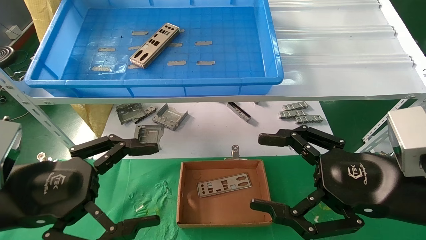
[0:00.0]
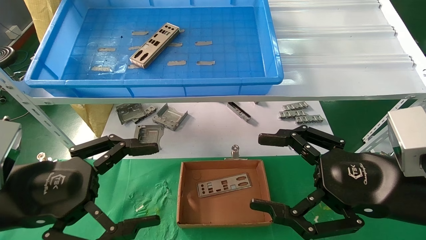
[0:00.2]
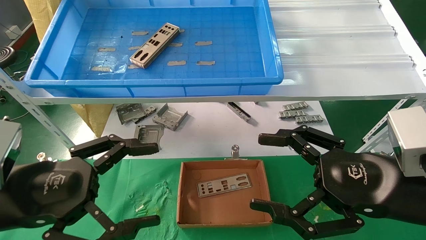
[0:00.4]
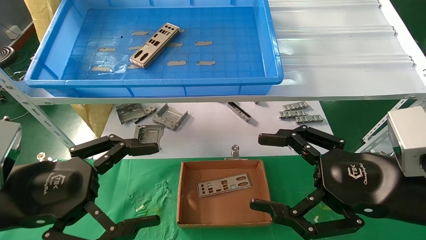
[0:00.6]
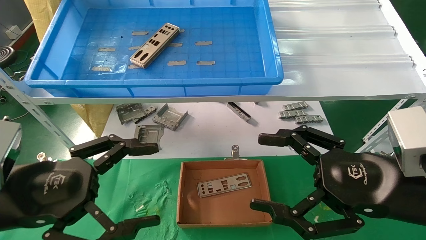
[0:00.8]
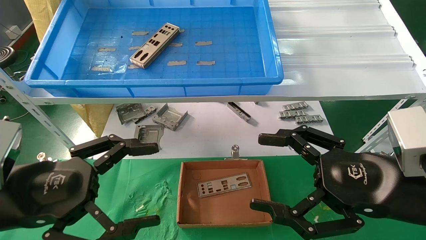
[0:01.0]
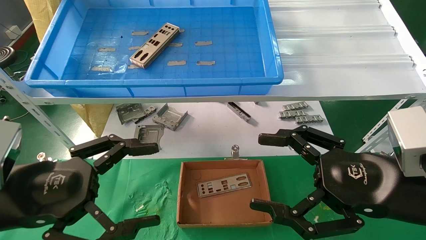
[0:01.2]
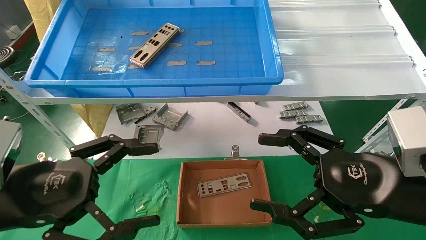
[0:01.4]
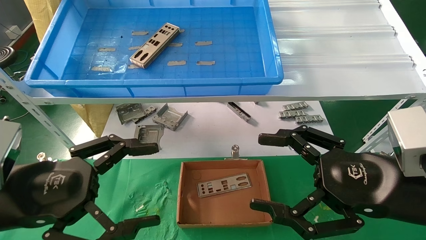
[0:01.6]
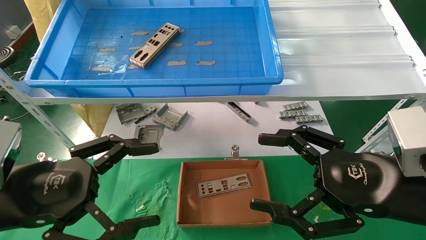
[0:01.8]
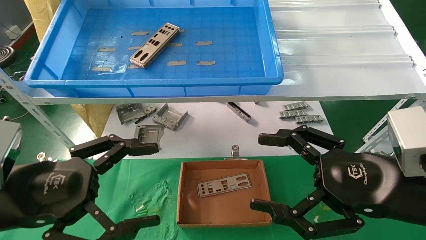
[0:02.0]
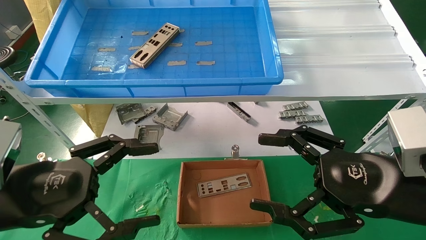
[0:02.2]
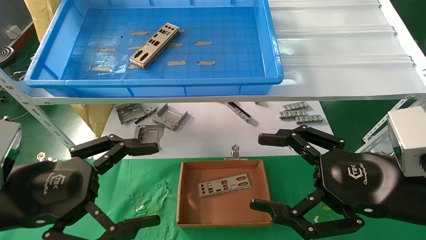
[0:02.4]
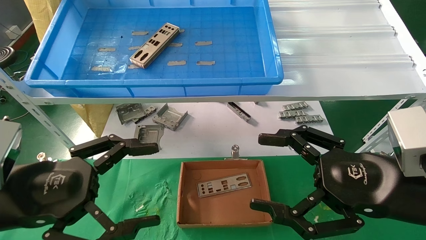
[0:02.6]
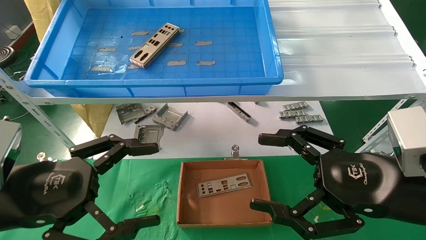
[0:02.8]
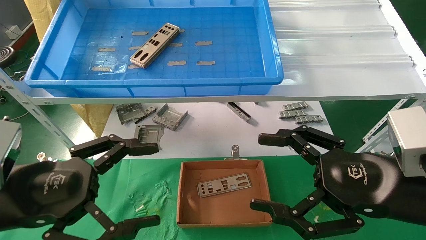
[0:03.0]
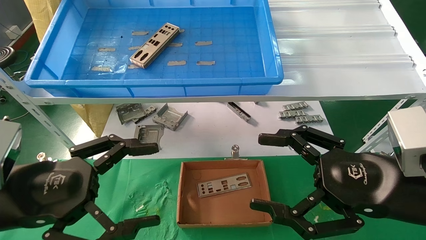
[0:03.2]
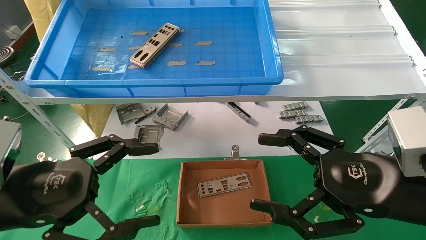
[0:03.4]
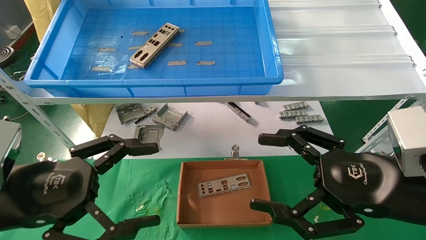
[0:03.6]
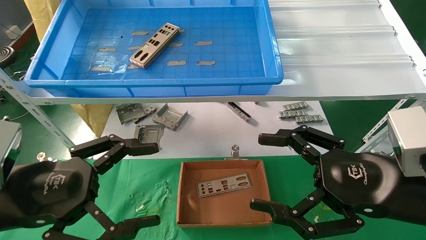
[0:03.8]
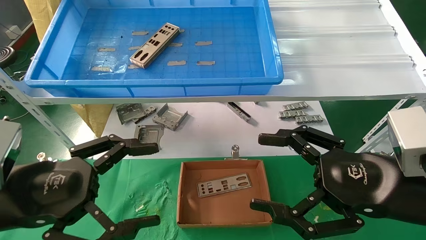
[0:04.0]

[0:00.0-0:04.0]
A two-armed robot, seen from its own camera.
Task of the whole recording: pick up the parts on the tray and put them in the cardboard box.
0:00.0 to 0:04.0: The two grippers keep their place.
